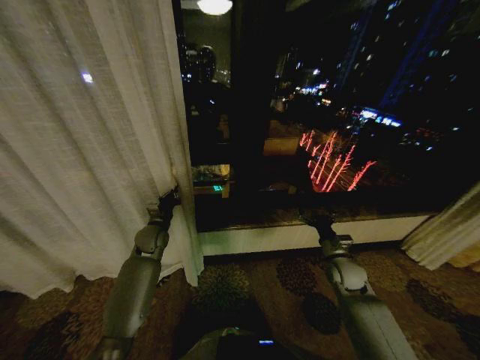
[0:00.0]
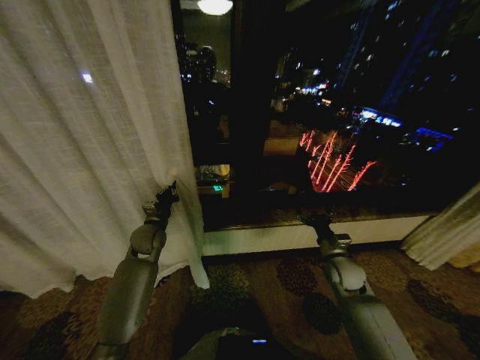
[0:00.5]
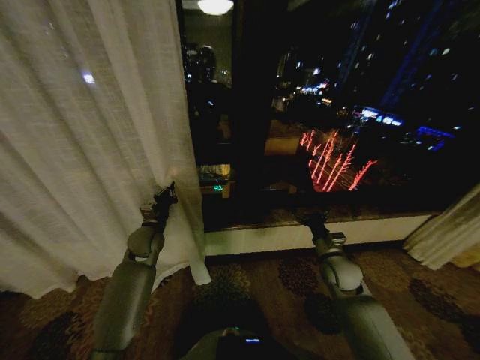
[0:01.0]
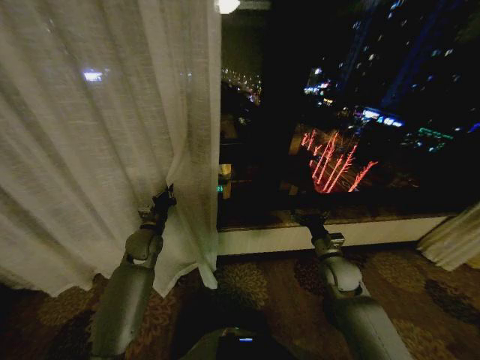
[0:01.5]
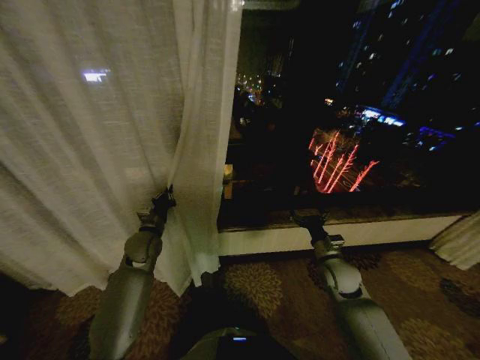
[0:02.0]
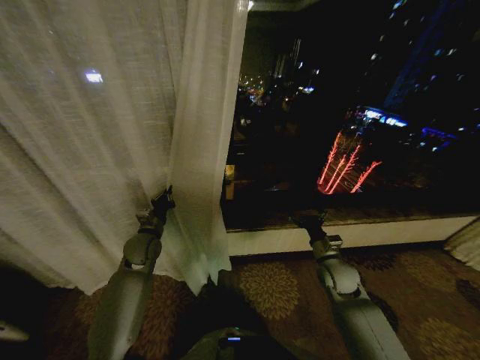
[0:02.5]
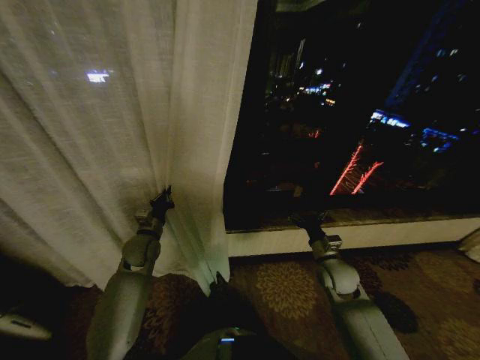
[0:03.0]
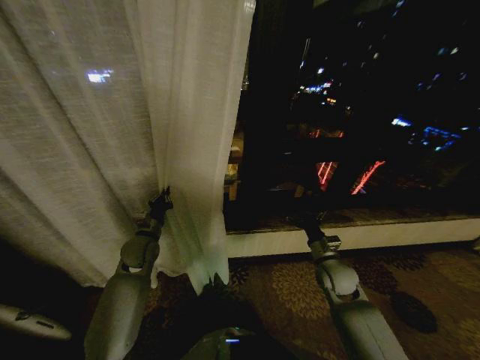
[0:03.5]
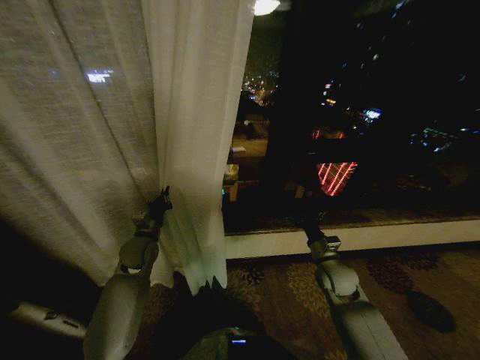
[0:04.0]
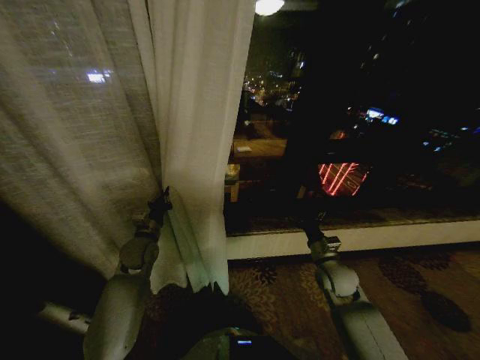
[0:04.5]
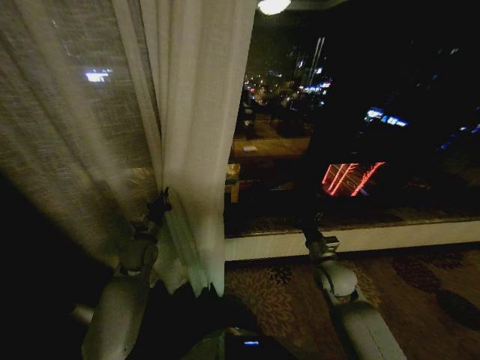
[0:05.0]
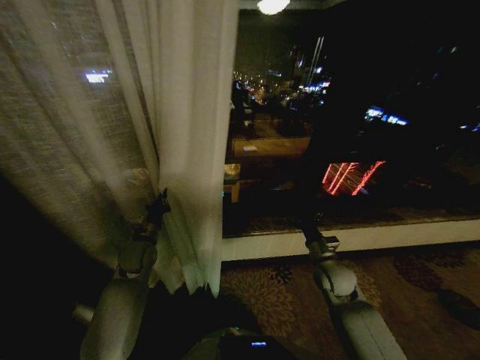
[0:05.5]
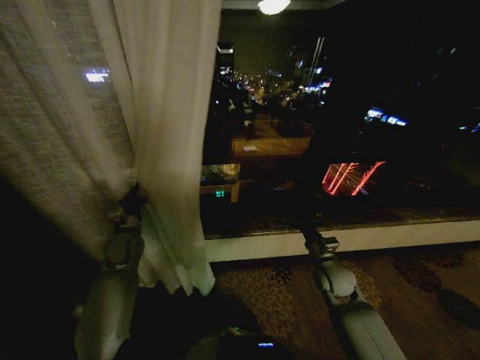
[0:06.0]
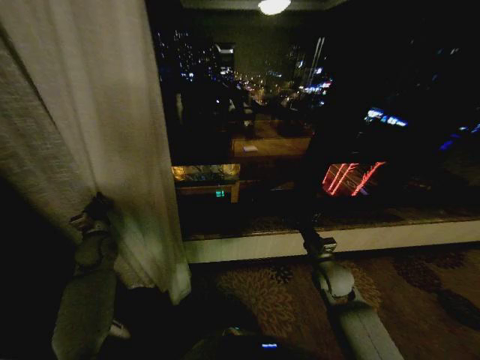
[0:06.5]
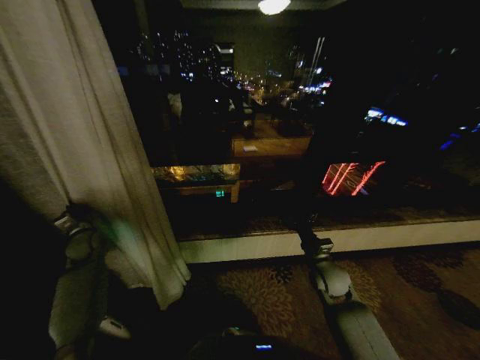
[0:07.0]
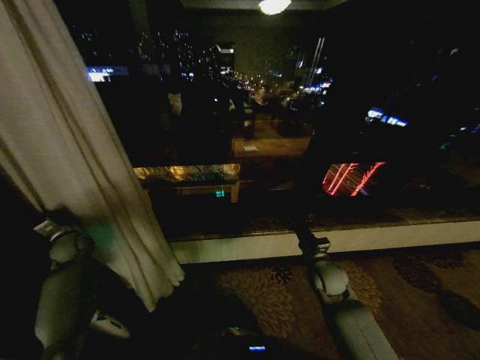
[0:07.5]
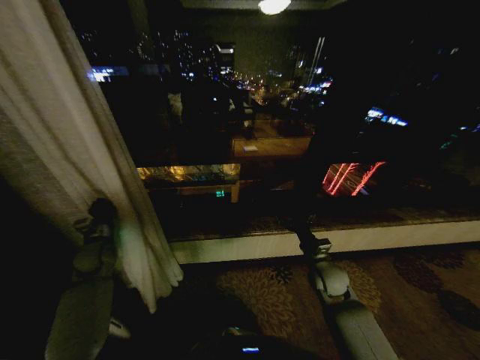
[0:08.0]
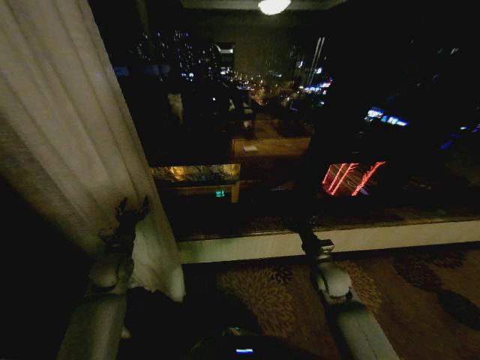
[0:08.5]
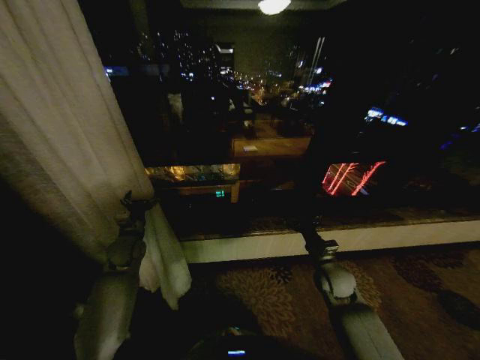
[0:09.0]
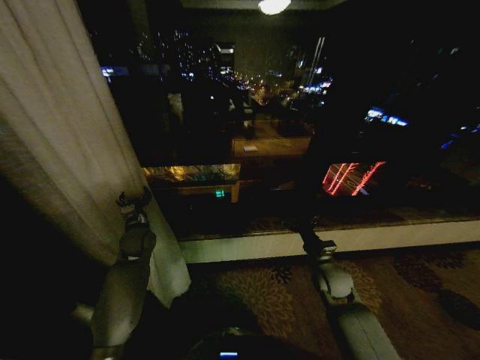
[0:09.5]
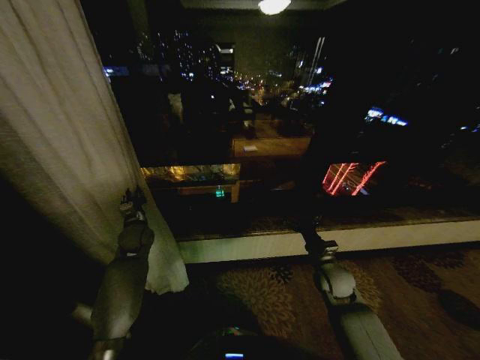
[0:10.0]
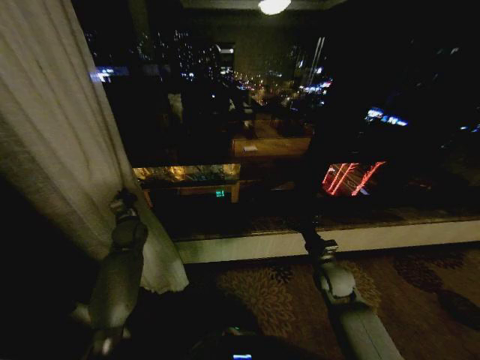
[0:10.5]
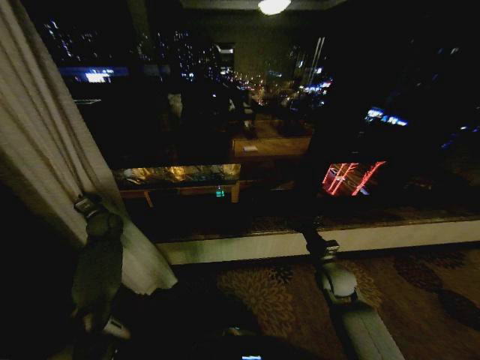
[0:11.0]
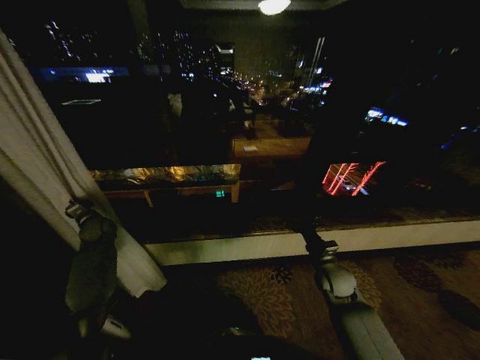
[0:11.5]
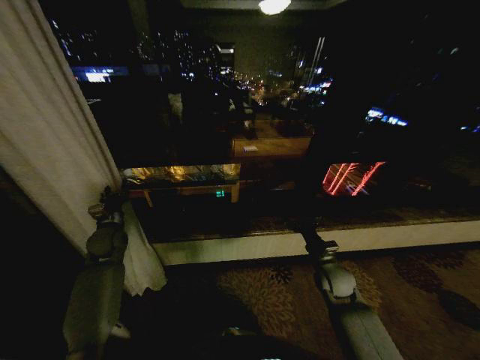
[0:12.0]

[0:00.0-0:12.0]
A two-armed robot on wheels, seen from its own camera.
Task of the whole recording: Open the curtains by pulling them apart, changing their state from closed to fully open.
0:06.0 to 0:08.0: The left gripper moves to the left, about 10 cm.
0:08.0 to 0:10.0: The left gripper is displaced to the right and forward by approximately 10 cm, and opens, then closes once more.
0:10.0 to 0:12.0: The left gripper moves to the left, about 10 cm, and closes and opens again.

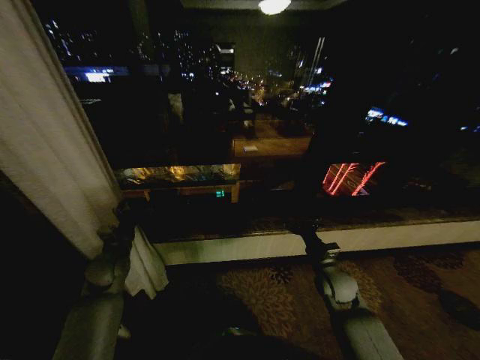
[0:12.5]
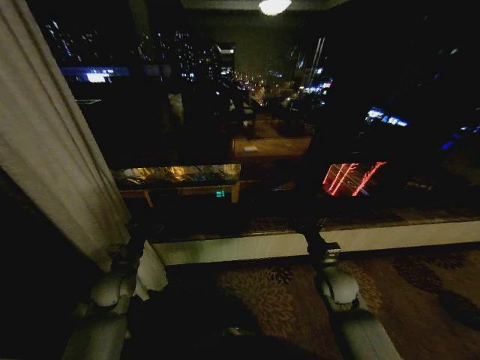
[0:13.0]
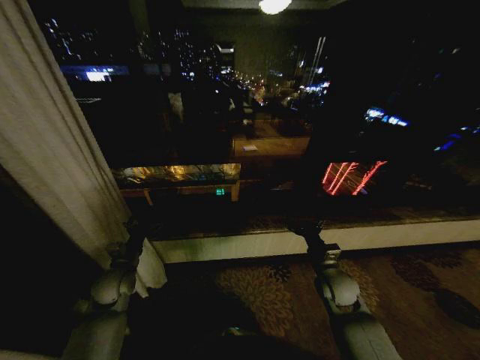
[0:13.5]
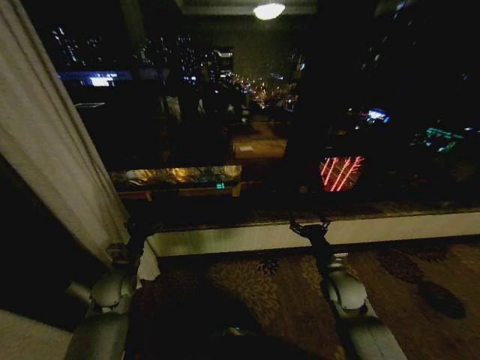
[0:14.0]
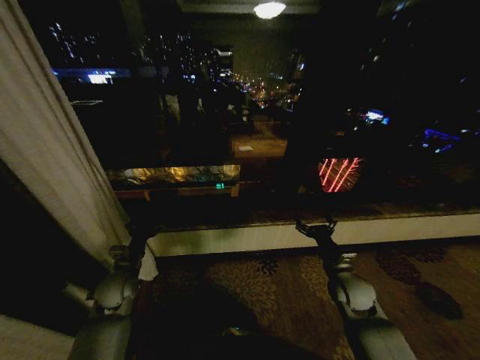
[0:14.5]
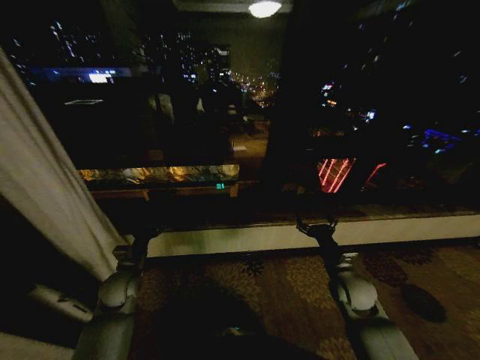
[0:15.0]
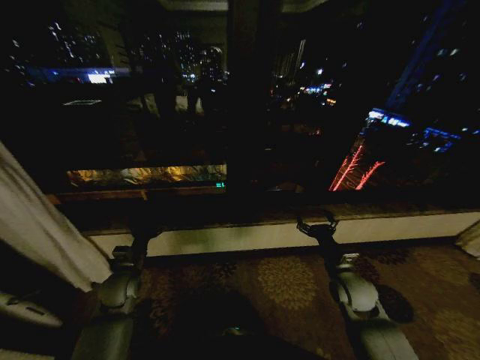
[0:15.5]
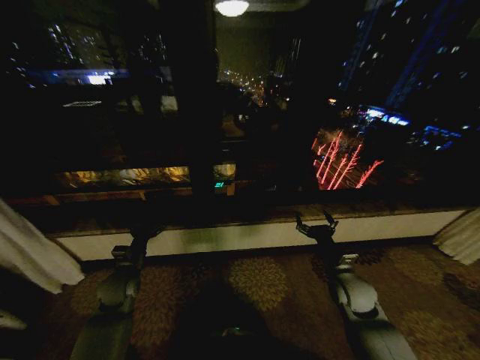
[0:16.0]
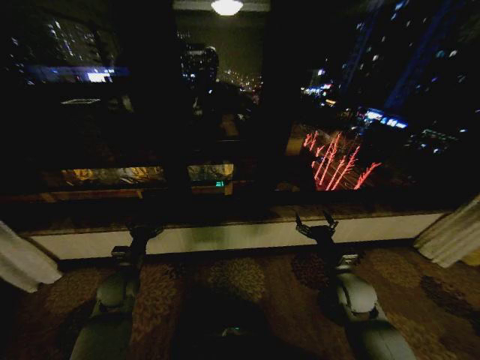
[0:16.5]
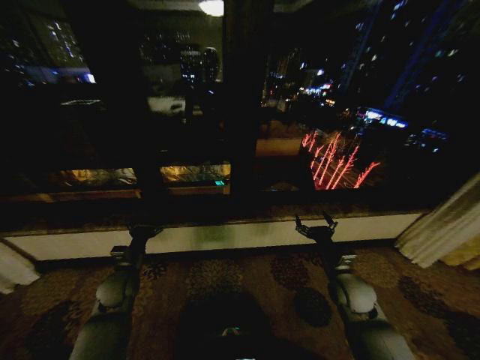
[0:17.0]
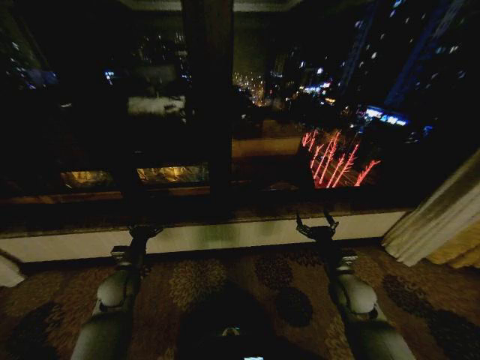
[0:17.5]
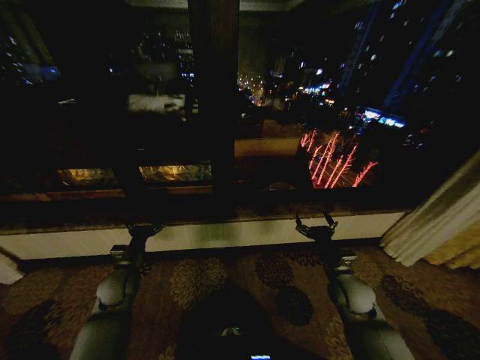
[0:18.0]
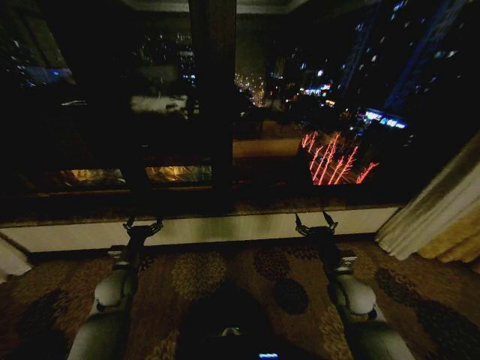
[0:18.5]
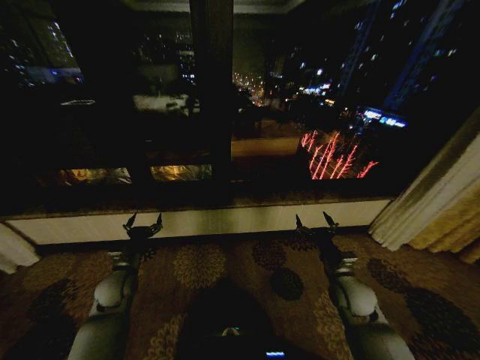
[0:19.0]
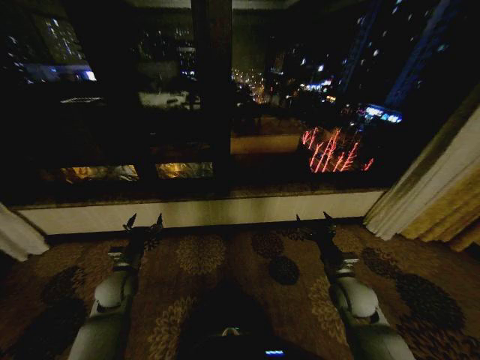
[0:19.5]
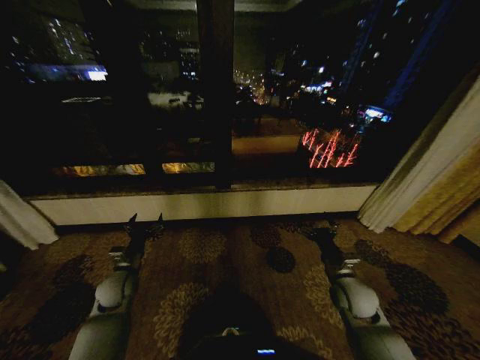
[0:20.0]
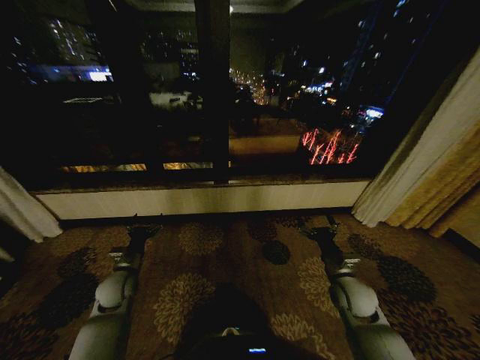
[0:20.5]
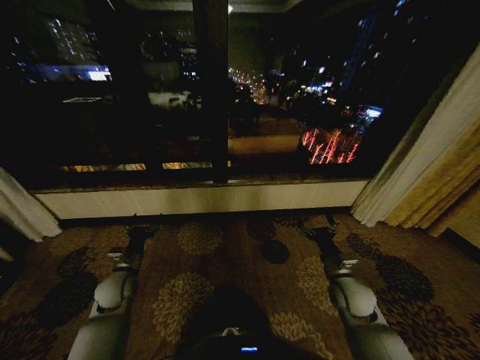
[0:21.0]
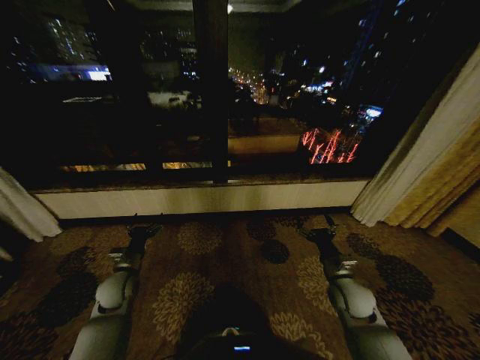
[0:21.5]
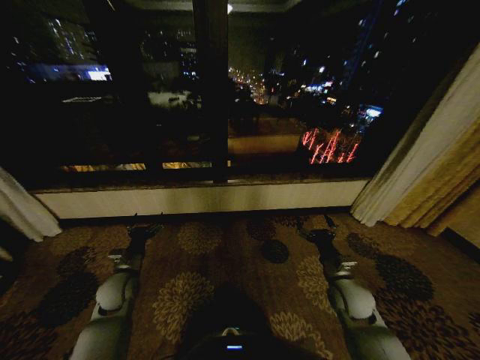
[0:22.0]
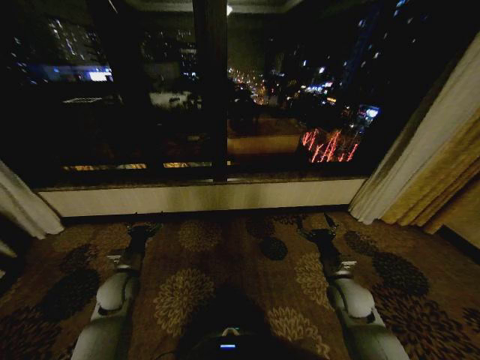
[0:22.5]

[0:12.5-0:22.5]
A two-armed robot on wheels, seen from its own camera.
Task of the whole recording: Open the curtains by pulling them apart, changing their state from closed to fully open.
0:12.5 to 0:14.5: The left gripper shifts by about 5 cm.
0:16.5 to 0:18.5: Neither gripper changes place.
0:20.5 to 0:22.5: Both grippers stay put.

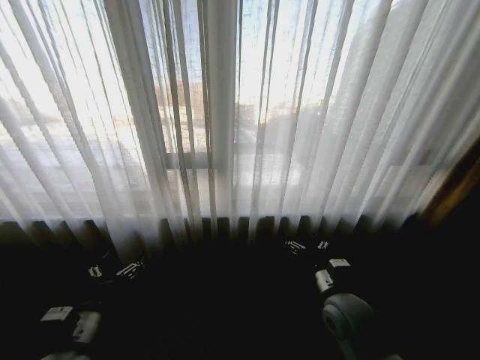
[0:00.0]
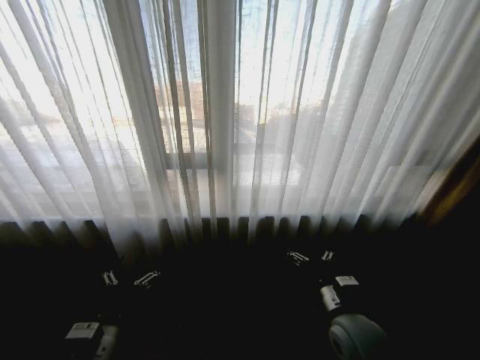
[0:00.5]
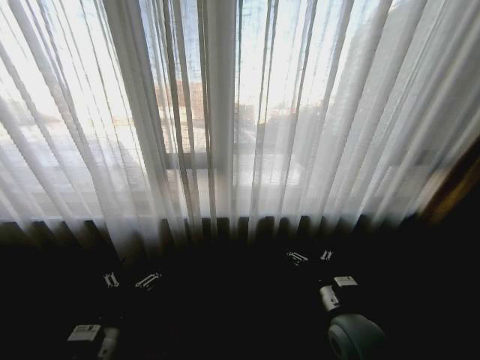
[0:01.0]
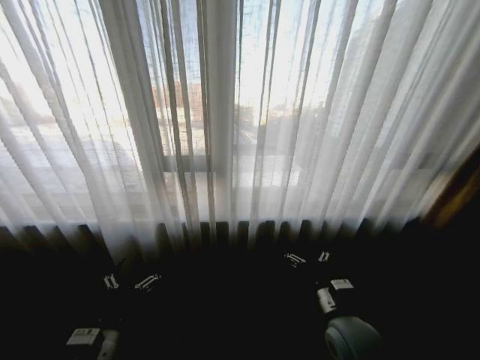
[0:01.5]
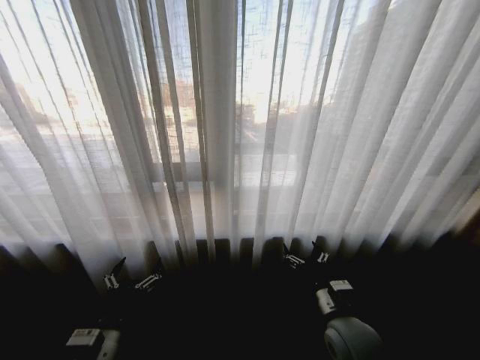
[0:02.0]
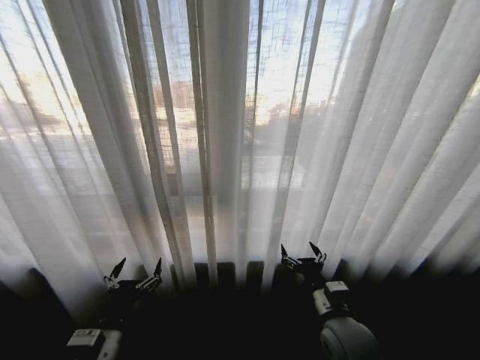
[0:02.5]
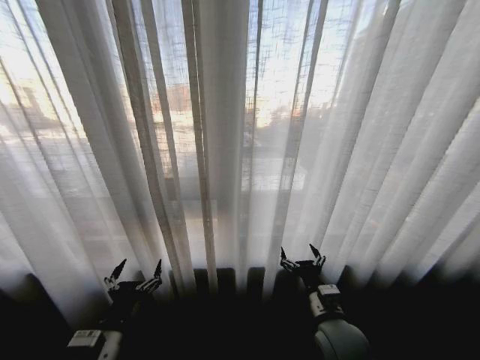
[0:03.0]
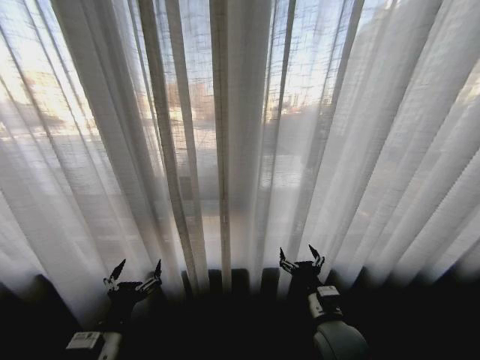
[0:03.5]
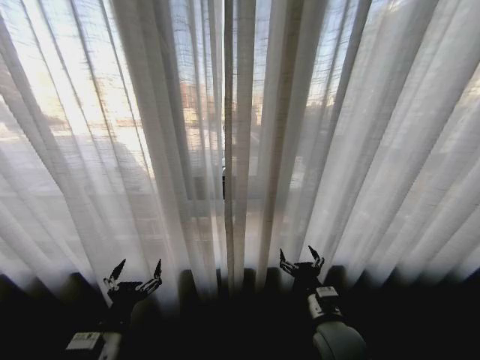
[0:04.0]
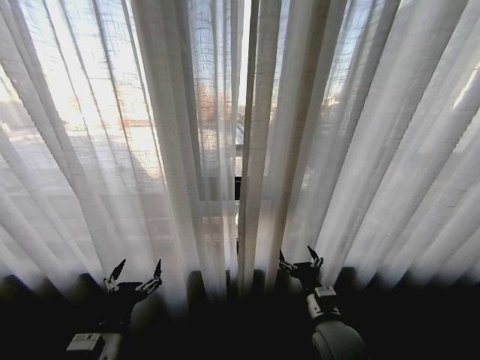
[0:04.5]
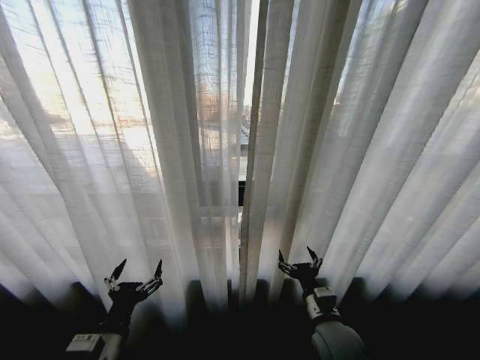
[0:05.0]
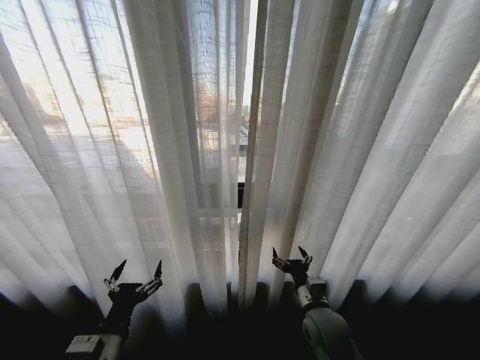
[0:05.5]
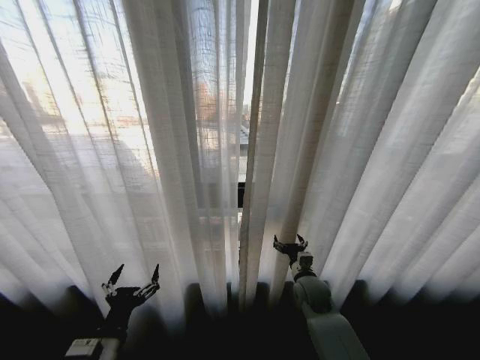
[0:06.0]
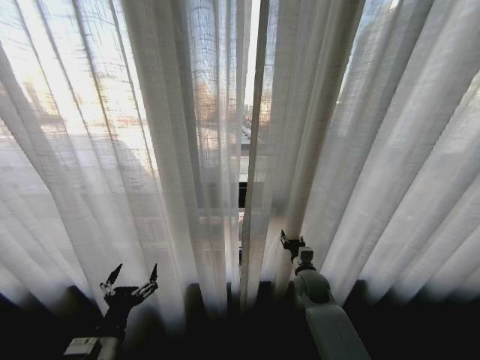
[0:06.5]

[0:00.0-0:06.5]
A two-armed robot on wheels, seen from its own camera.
Task of the whole recording: Open the curtains by pulling them apart, changing their state from closed to fully open.
0:04.5 to 0:06.5: The right gripper travels forward by roughly 15 cm, and closes up.
